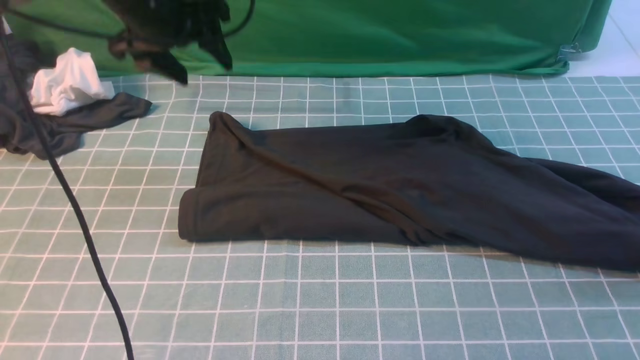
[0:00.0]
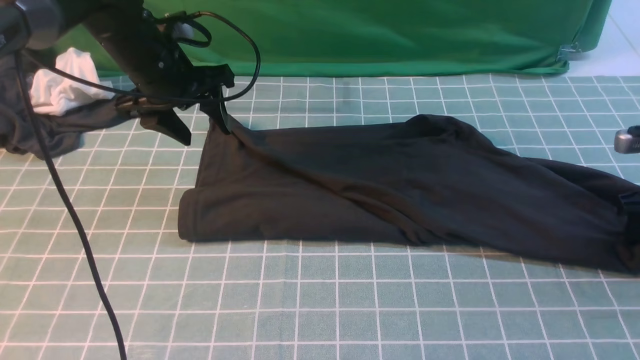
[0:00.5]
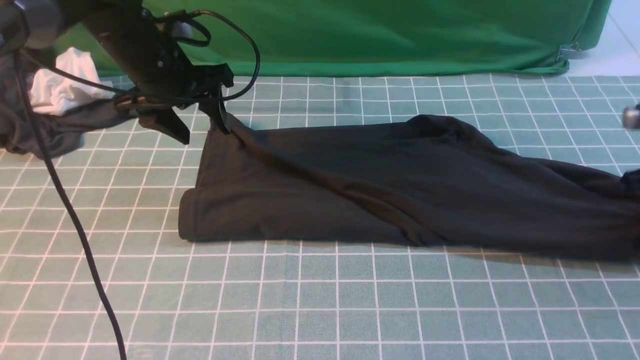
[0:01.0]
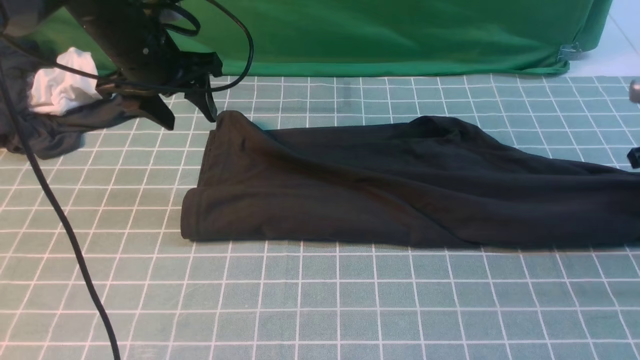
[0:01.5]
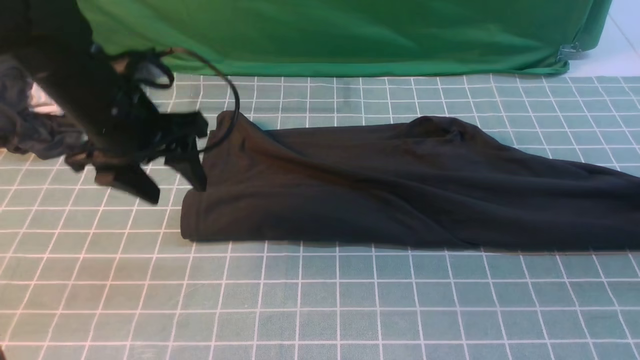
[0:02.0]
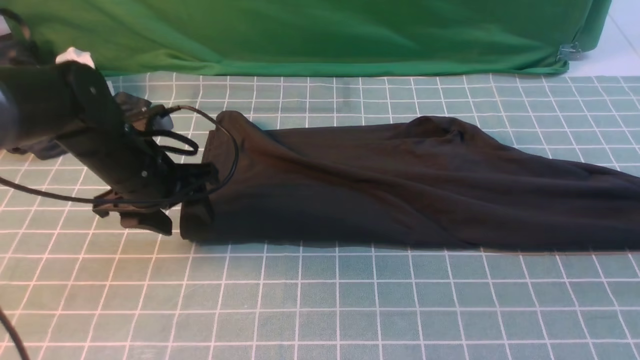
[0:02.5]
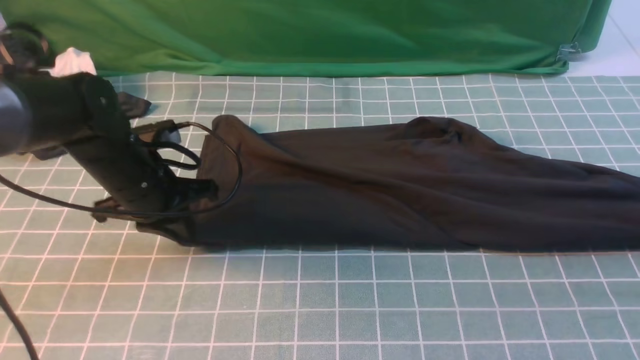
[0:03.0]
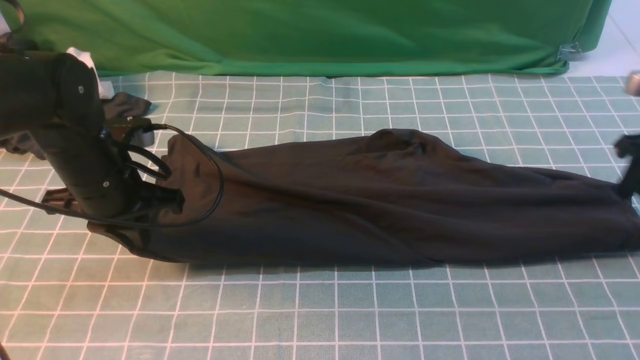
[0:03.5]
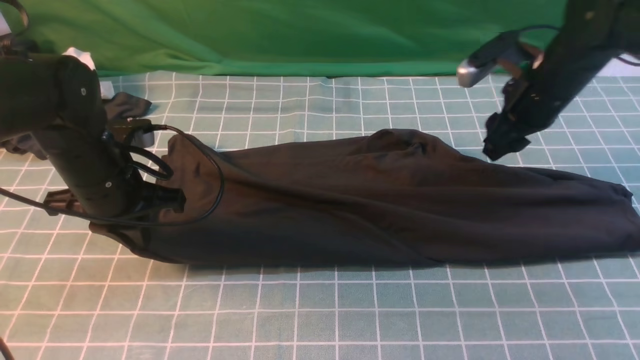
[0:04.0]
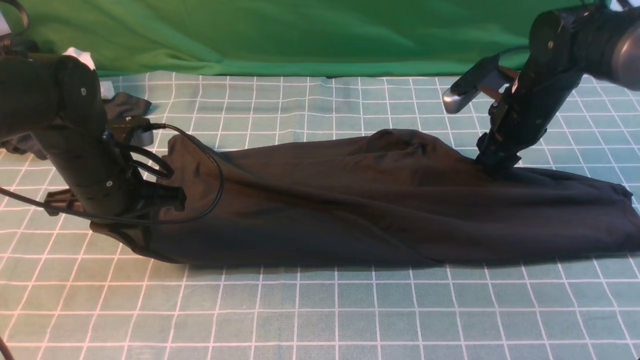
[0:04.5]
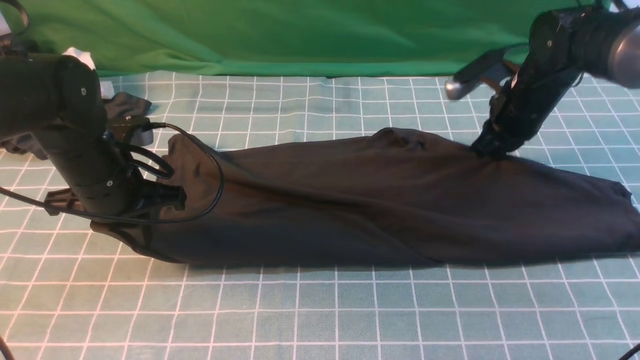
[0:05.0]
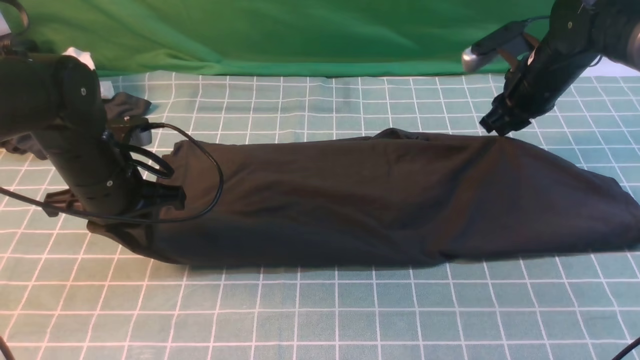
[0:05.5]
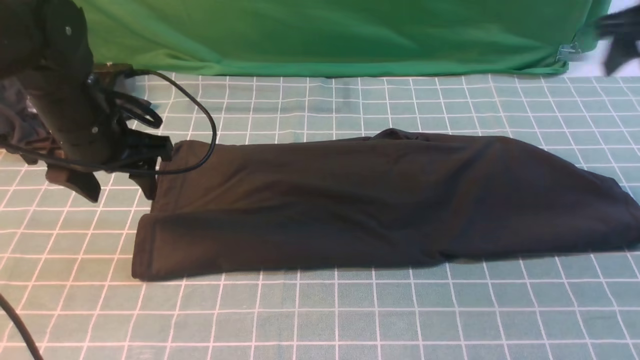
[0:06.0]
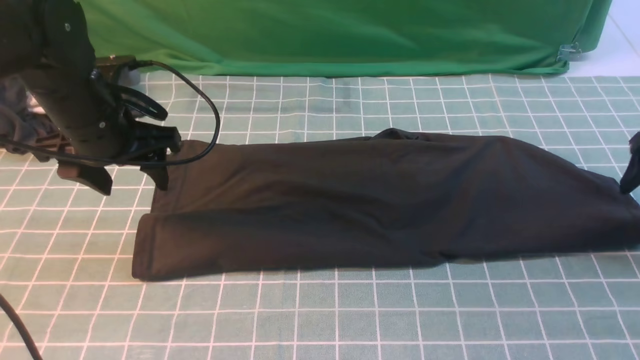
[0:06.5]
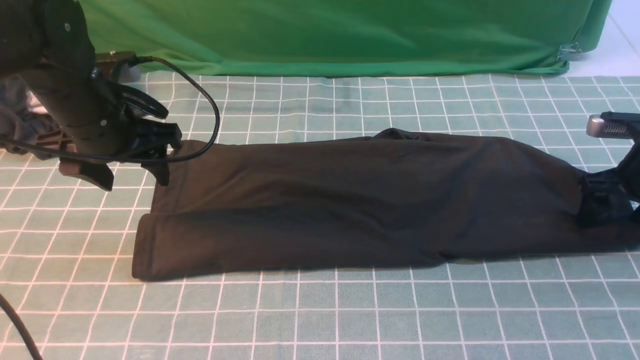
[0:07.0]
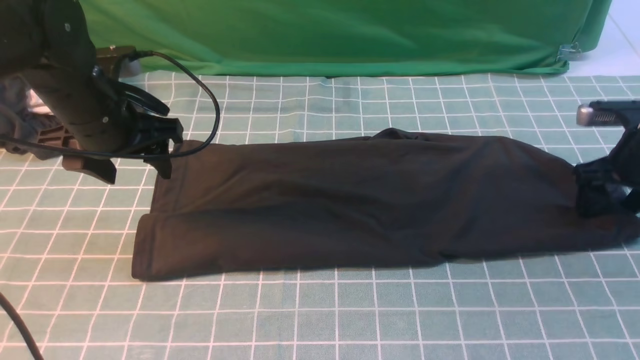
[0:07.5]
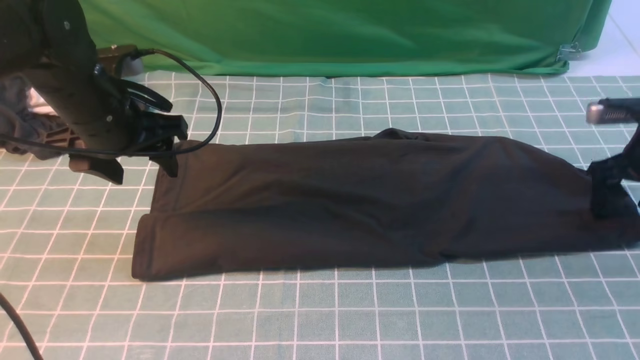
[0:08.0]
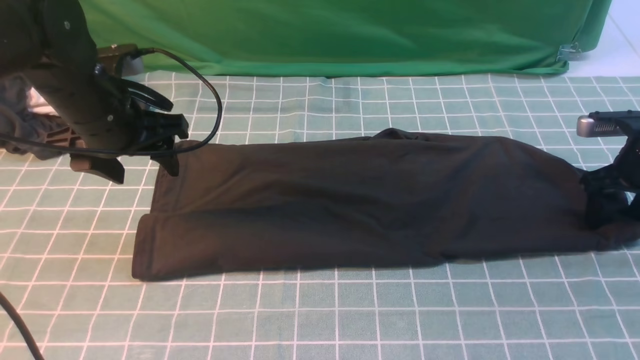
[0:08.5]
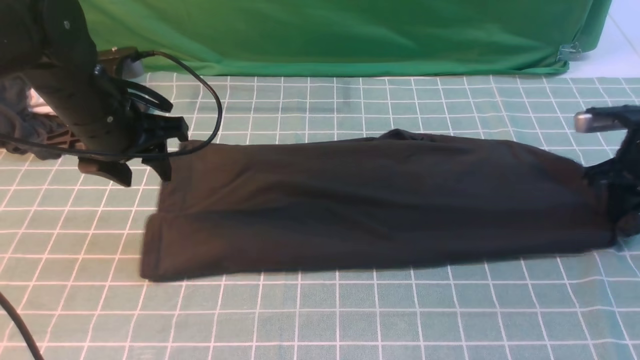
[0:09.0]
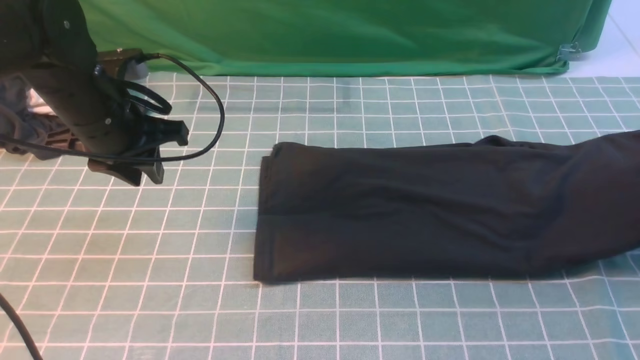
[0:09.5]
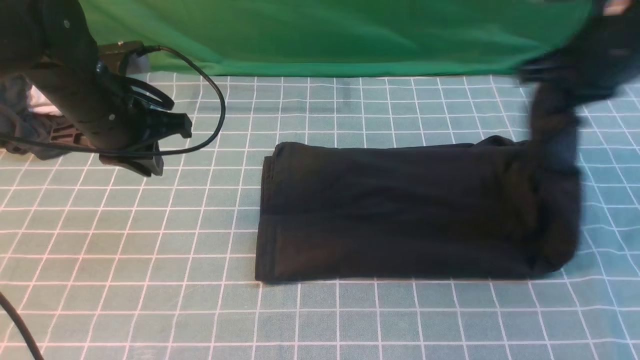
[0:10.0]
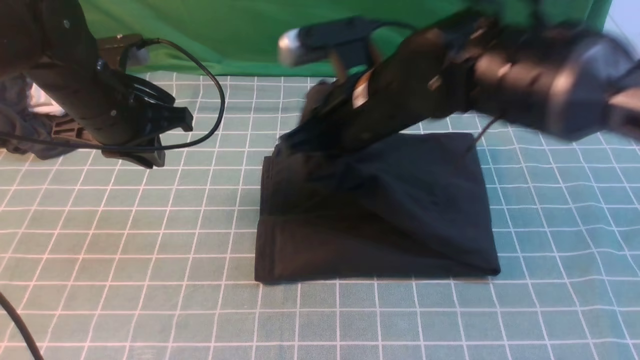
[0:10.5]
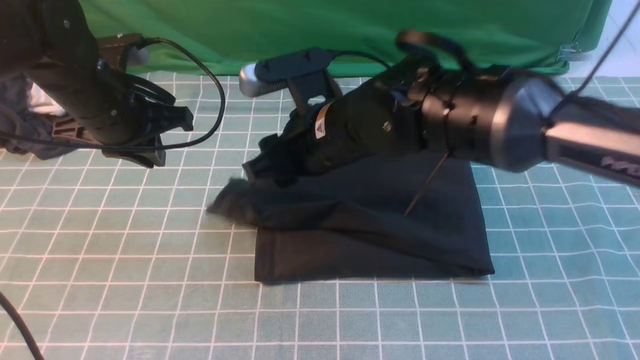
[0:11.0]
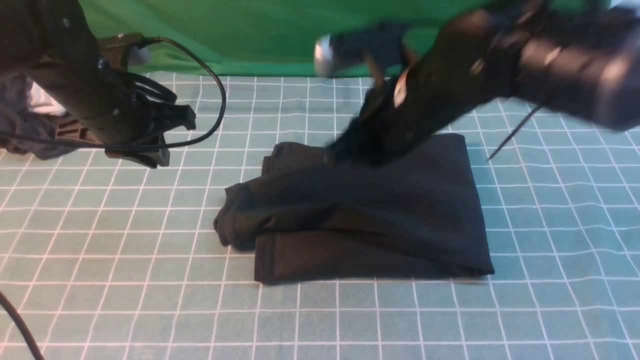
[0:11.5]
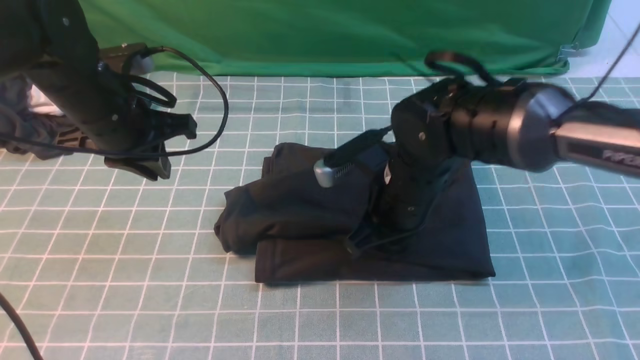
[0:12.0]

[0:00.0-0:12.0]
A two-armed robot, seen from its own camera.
Step, 0:00.0 to 0:05.5: use both arms to drag the lower edge of the fabric forward and fold it over the upper edge.
Step, 0:06.0 to 0:09.0: use the right arm to clamp the right edge of the fabric.
Step, 0:09.5 to 0:11.0: use the right arm to drag the right edge of the fabric to the left and folds it over the left edge.
0:00.0 to 0:02.0: The left gripper travels backward by about 10 cm. Meanwhile the right gripper travels to the right, downward and forward by approximately 10 cm, and opens its fingers.
0:02.0 to 0:04.0: The right gripper travels to the left by approximately 20 cm. Meanwhile the left gripper goes roughly 5 cm downward, and closes.
0:04.0 to 0:06.0: The right gripper shifts some 15 cm to the right and upward, and closes, then opens again, while the left gripper shifts by roughly 5 cm, and opens its fingers.
0:06.0 to 0:08.0: The right gripper goes approximately 15 cm downward.
0:08.0 to 0:10.0: The right gripper heads to the left and upward, covering roughly 20 cm, and closes up. Meanwhile the left gripper closes up.
0:10.0 to 0:12.0: The right gripper shifts roughly 15 cm to the left and downward, and opens, then closes once more.

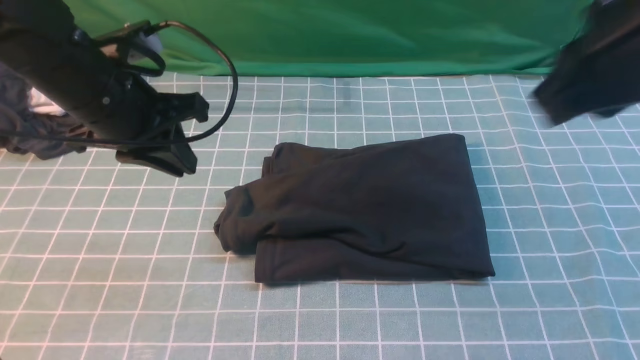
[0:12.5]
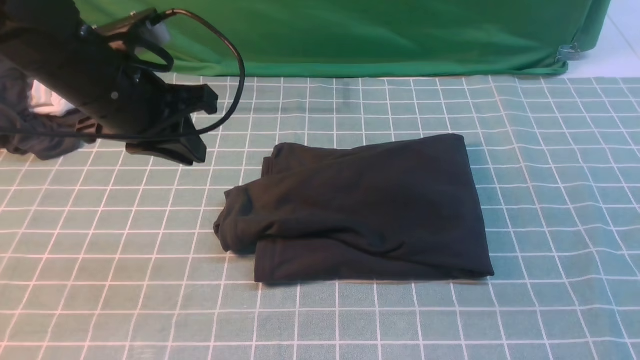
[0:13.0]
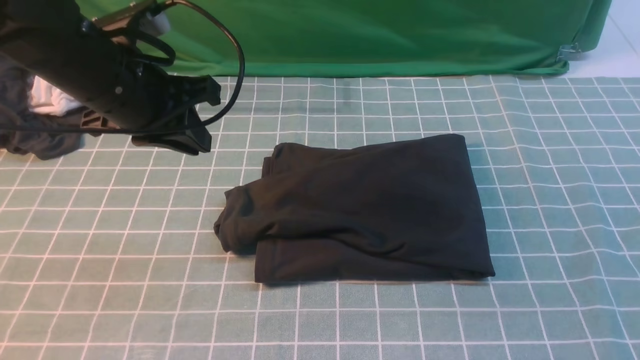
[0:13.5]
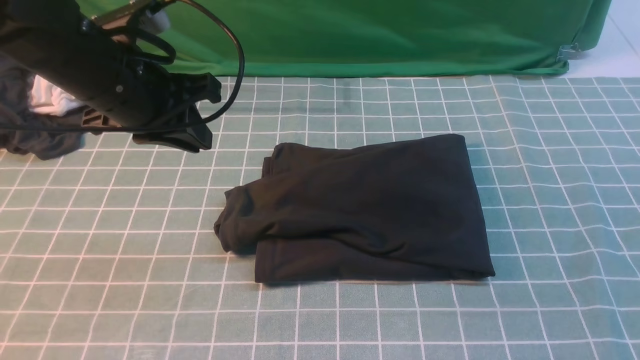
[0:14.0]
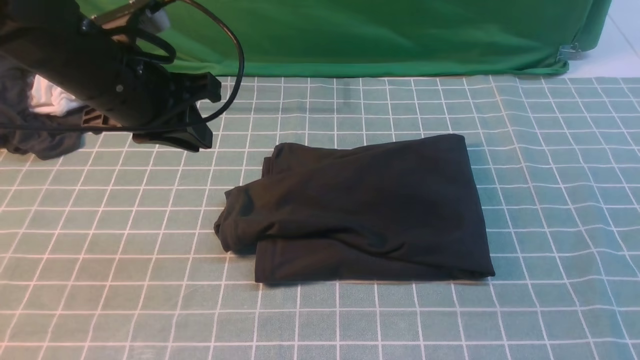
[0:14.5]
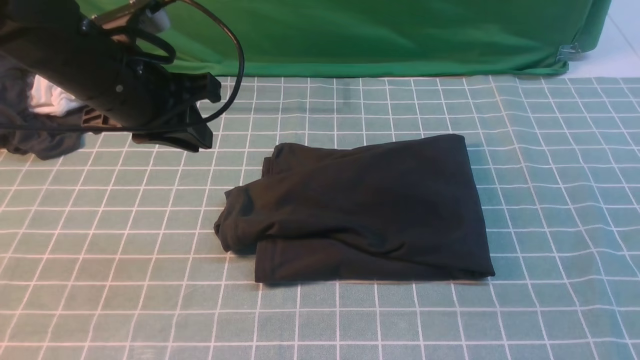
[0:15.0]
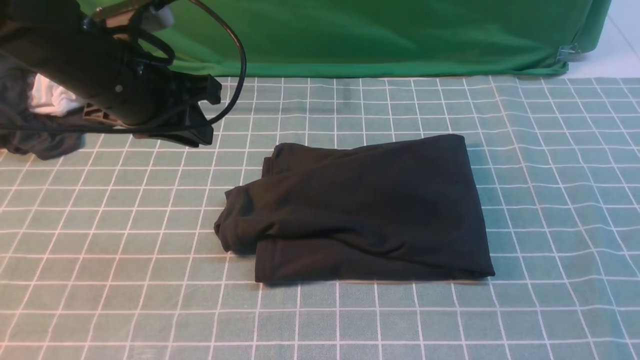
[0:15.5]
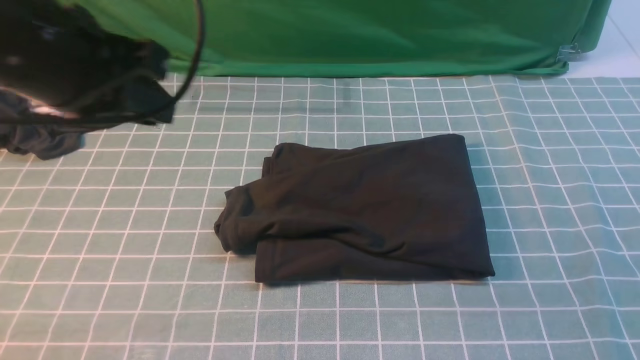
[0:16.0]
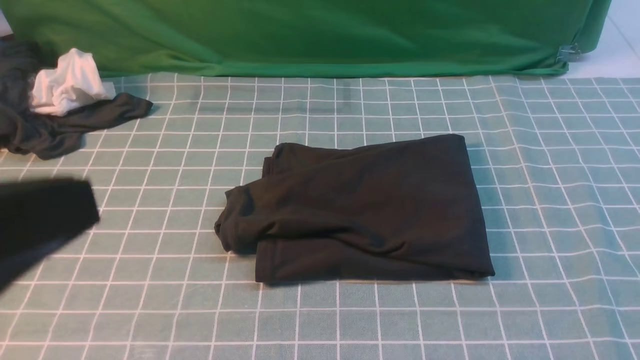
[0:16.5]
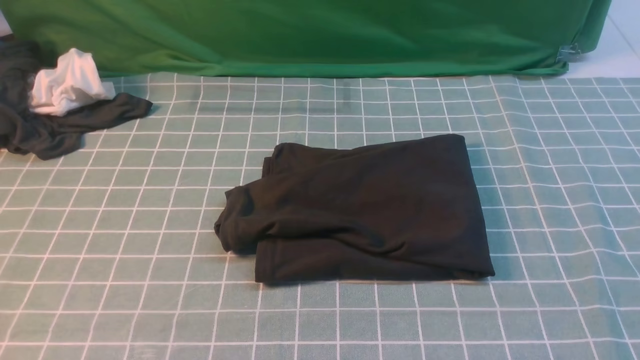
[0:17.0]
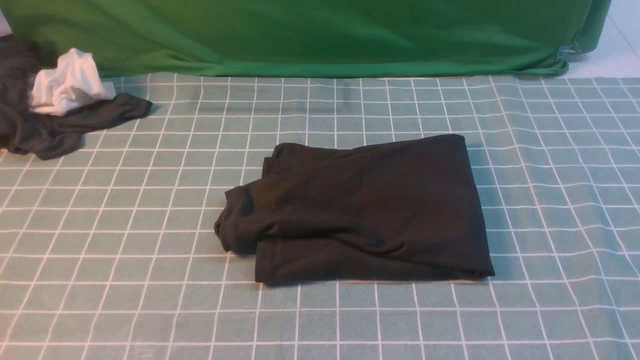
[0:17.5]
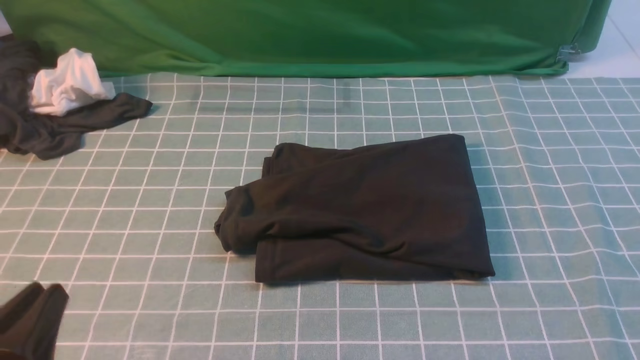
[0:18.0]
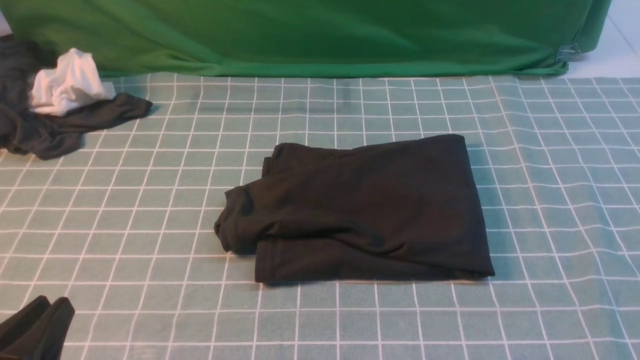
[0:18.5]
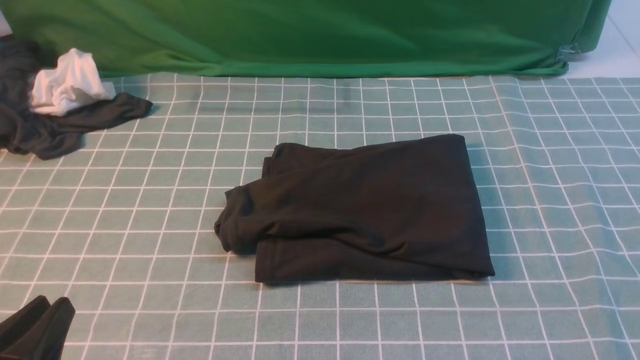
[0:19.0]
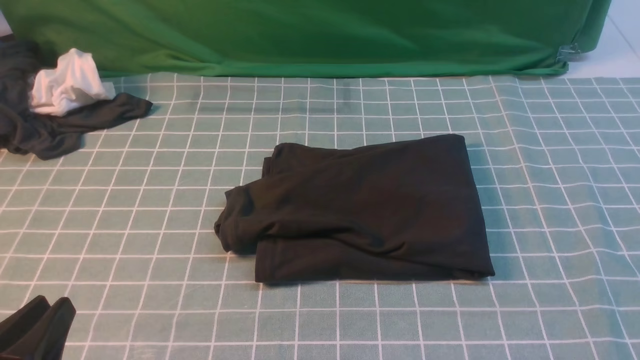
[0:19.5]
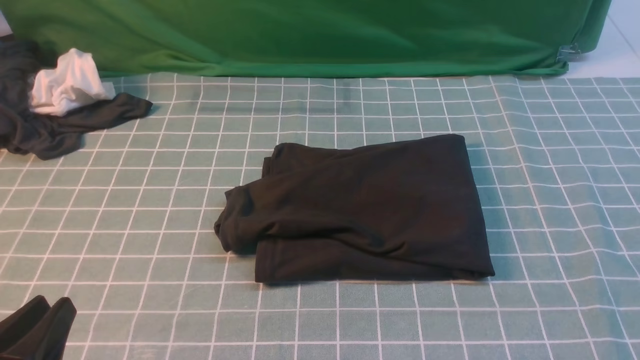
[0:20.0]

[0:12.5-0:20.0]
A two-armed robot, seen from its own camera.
0:12.5 to 0:14.5: The right gripper is displaced backward, downward and to the right by some 20 cm.
0:14.5 to 0:16.5: The left gripper heads backward, covering approximately 30 cm.
0:16.5 to 0:18.0: The left gripper goes some 20 cm downward.
0:18.0 to 0:20.0: The grippers stay close to where they were, moving slightly.
